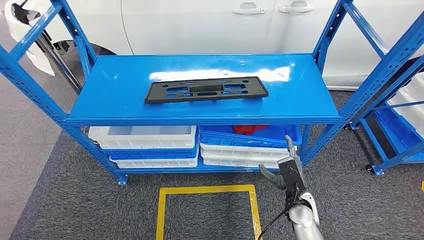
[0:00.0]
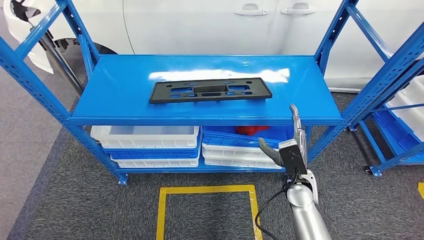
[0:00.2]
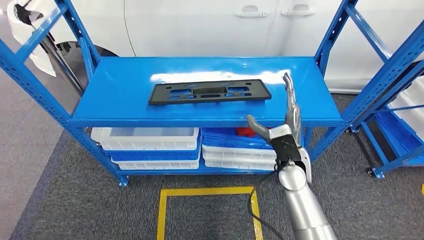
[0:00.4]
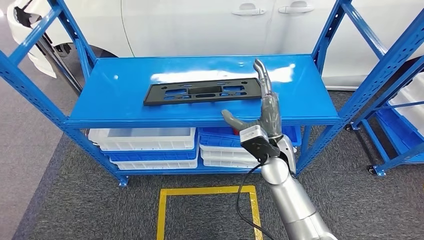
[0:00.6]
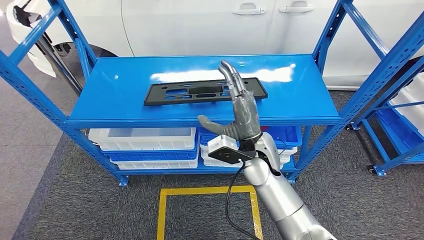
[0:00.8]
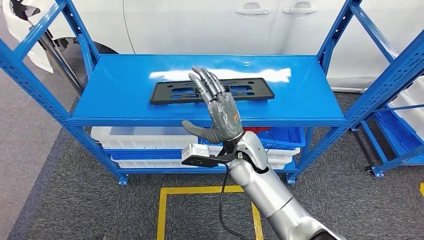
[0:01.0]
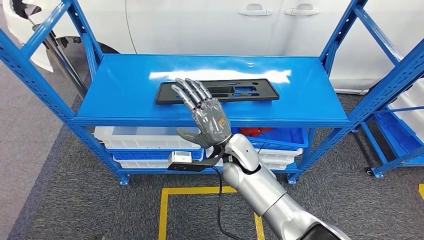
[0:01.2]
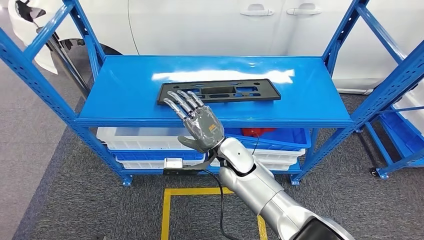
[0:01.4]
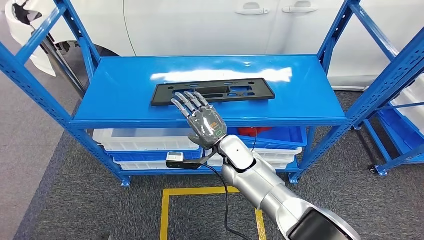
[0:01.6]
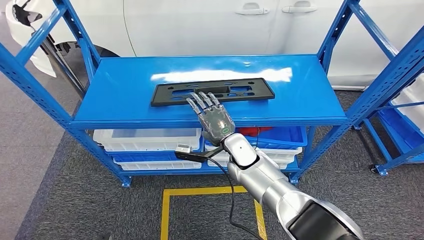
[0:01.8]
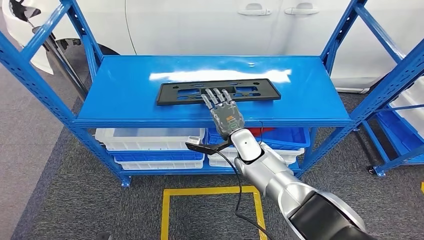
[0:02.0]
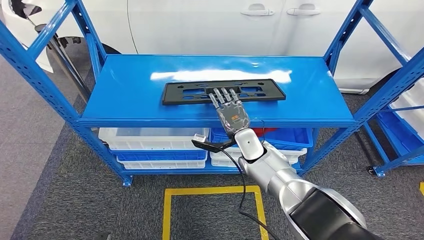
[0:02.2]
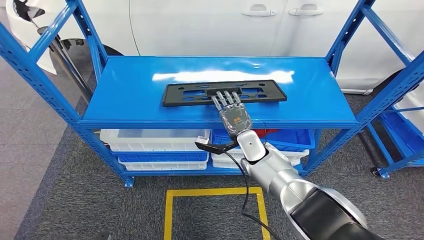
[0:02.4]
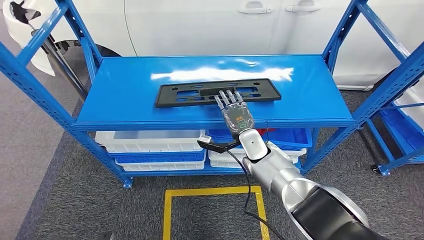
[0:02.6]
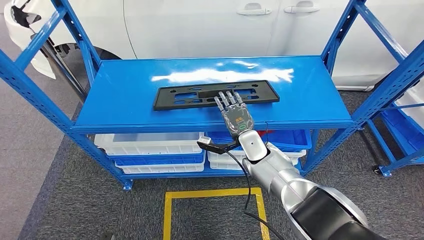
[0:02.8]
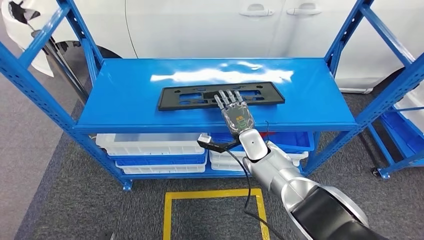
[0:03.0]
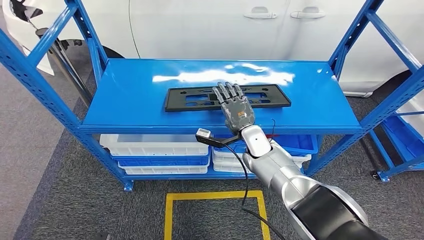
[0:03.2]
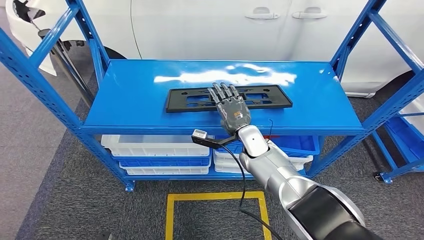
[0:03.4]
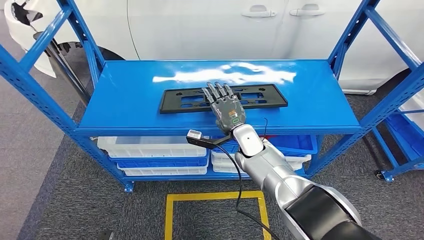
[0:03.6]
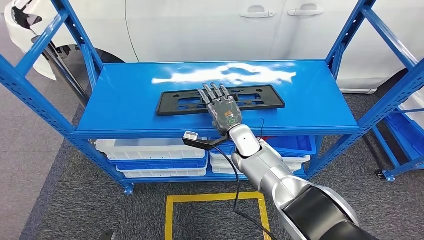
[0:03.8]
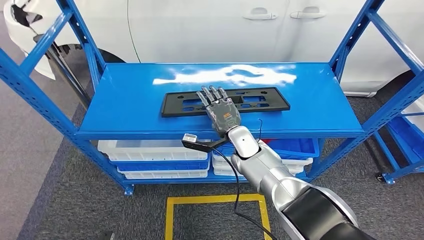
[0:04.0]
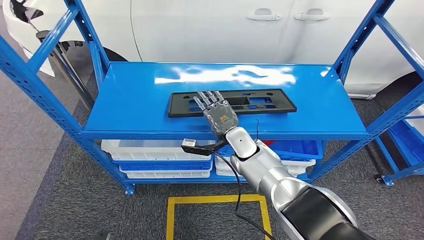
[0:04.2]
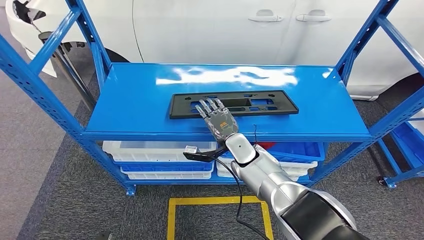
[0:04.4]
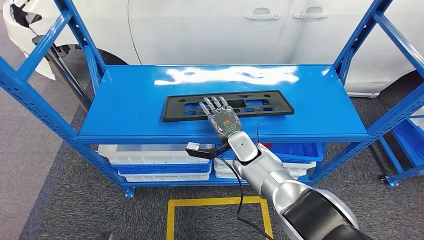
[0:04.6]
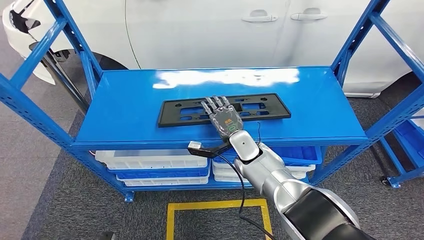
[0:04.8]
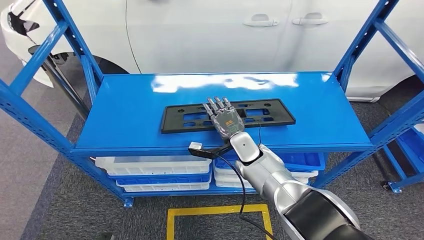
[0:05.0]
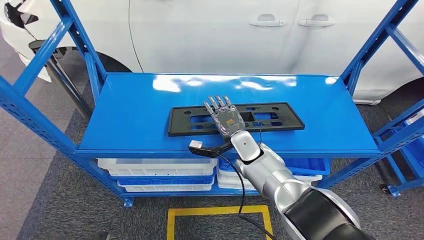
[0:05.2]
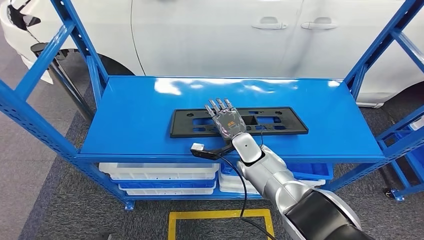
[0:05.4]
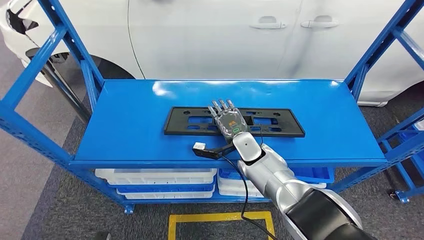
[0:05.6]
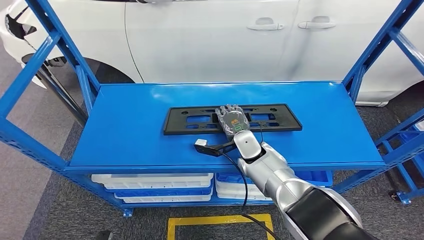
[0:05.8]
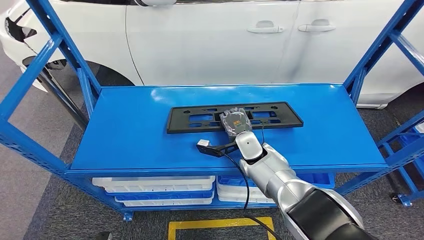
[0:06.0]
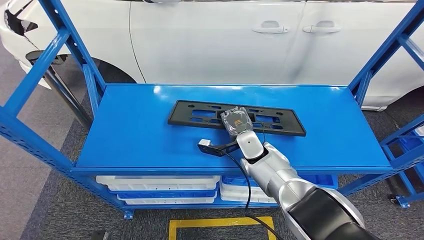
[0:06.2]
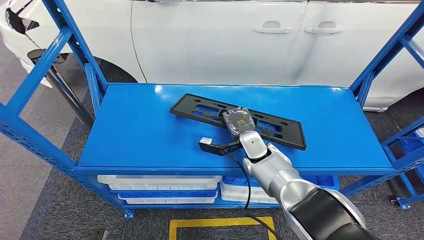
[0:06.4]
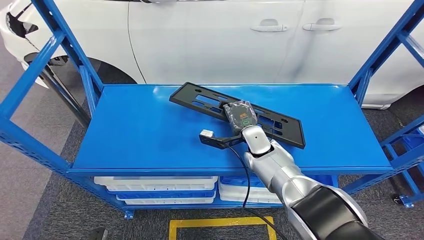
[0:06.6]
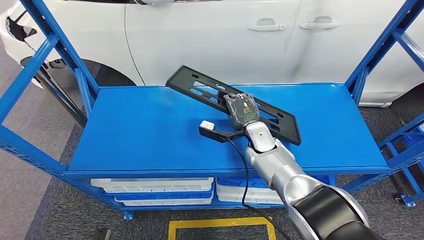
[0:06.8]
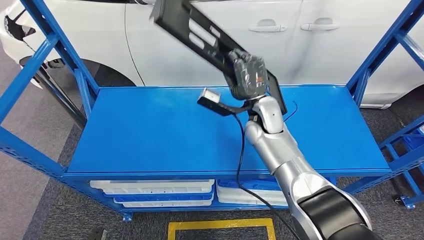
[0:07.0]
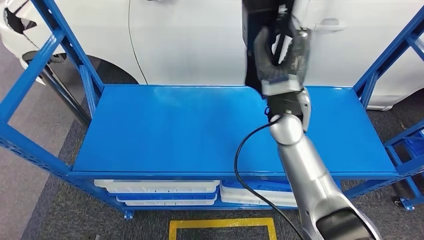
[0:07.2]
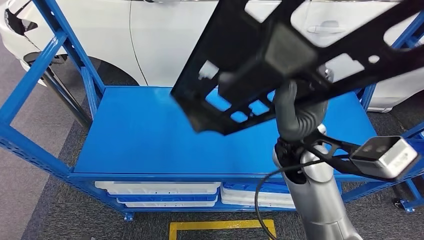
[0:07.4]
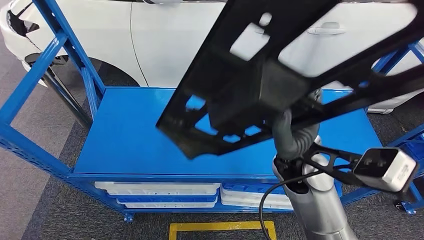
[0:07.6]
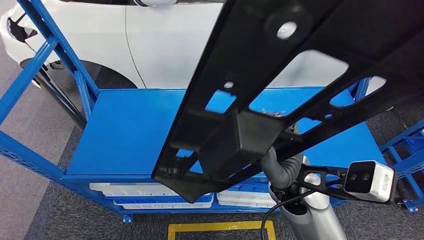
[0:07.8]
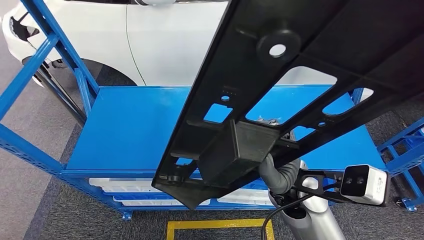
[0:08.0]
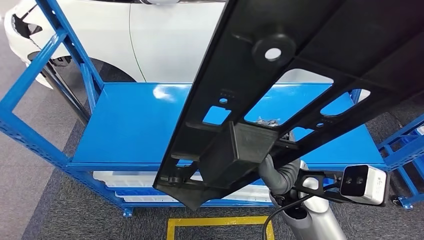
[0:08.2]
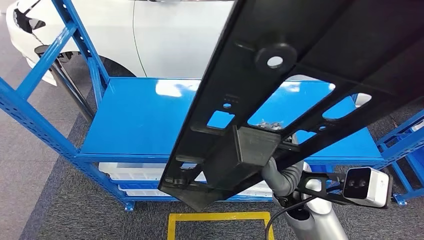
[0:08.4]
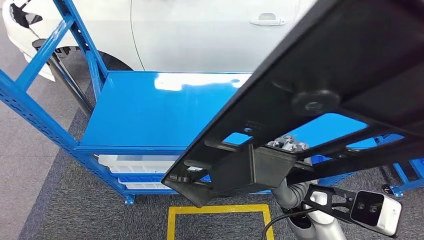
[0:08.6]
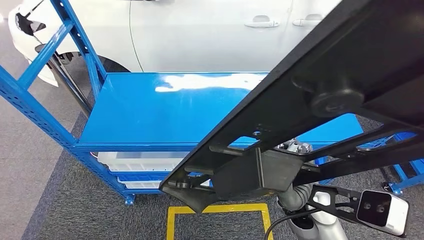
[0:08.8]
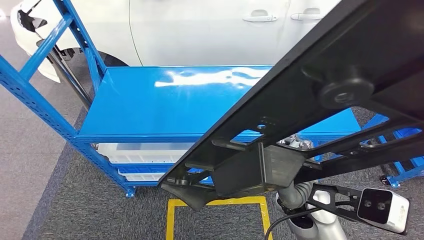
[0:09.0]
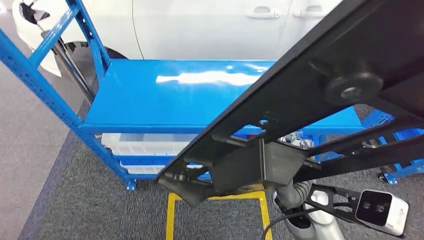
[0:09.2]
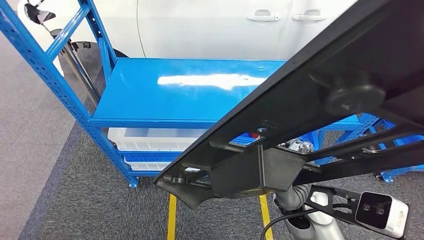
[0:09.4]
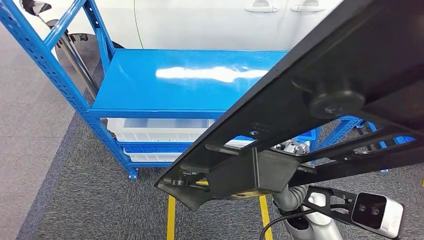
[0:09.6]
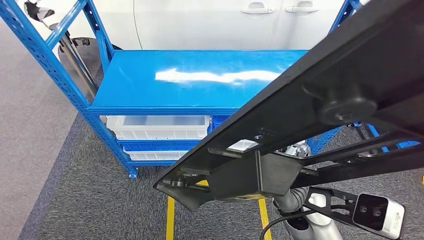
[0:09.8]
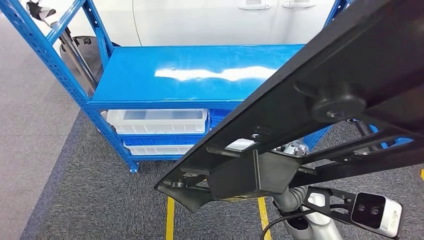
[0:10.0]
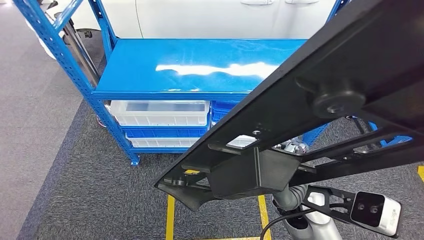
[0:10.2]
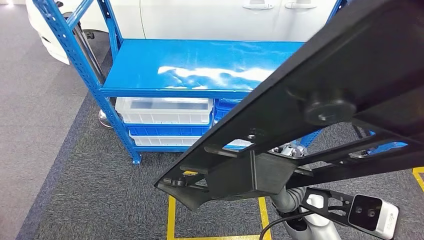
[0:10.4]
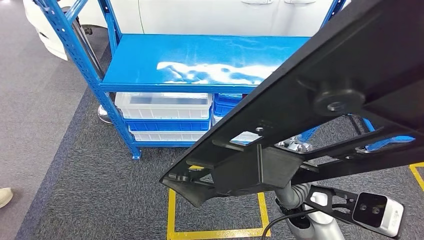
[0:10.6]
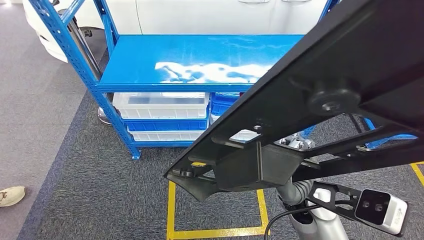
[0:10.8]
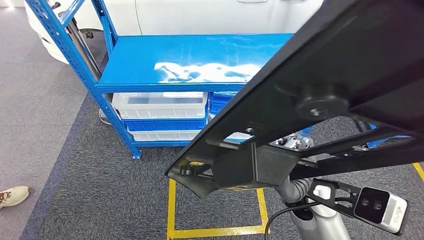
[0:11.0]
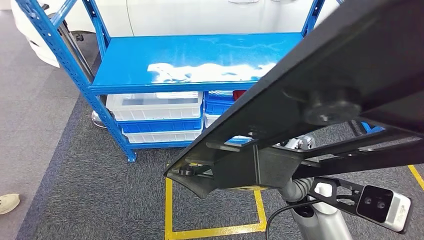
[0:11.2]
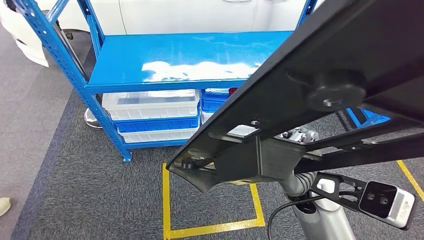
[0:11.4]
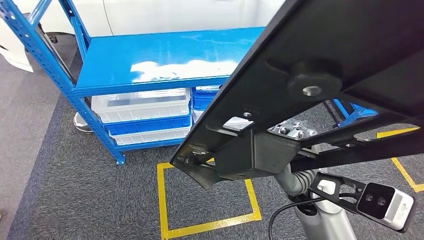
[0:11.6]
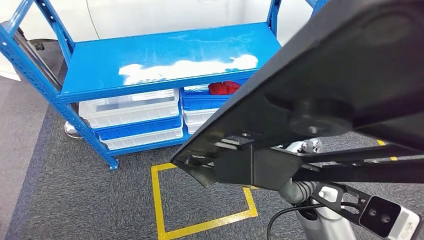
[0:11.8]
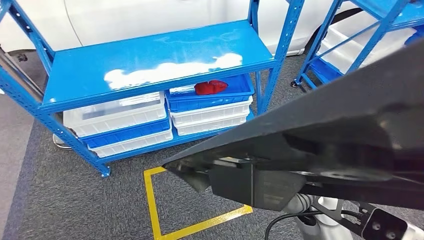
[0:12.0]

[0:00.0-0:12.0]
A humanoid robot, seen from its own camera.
Step, 0:00.0 to 0:07.4: Pick up the large material from the shelf.

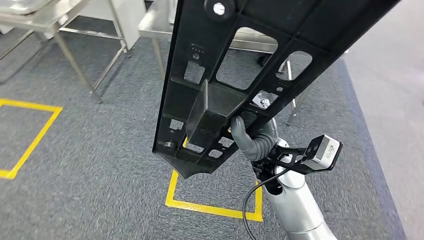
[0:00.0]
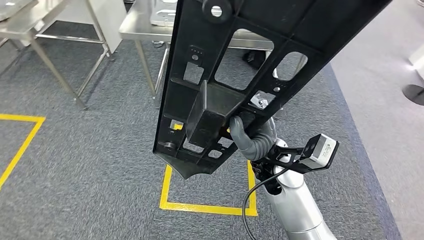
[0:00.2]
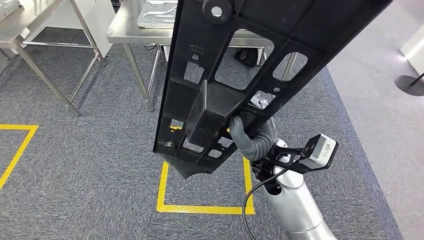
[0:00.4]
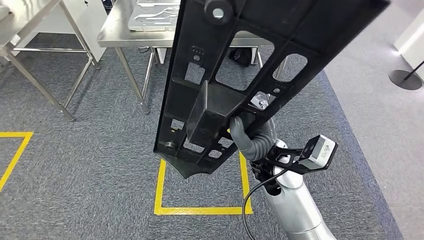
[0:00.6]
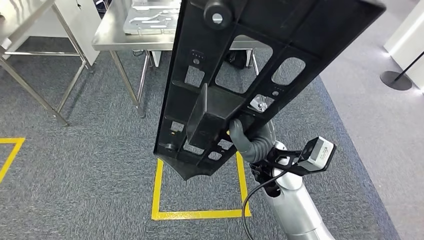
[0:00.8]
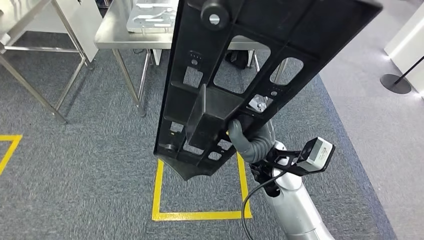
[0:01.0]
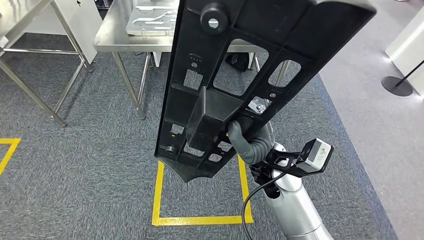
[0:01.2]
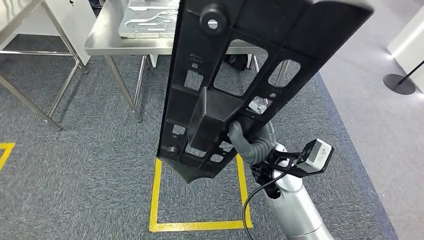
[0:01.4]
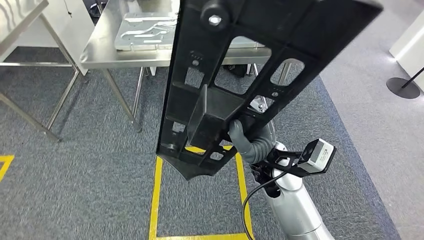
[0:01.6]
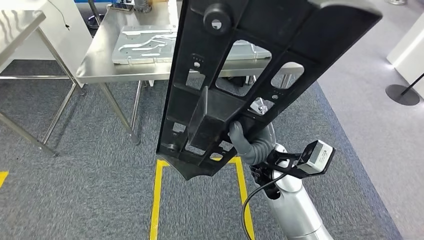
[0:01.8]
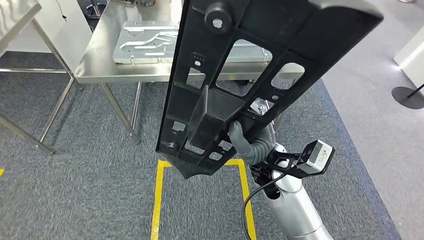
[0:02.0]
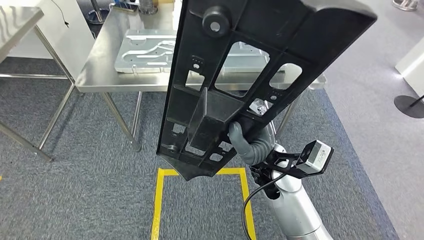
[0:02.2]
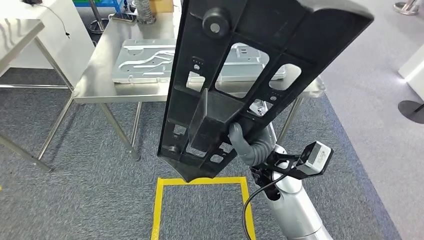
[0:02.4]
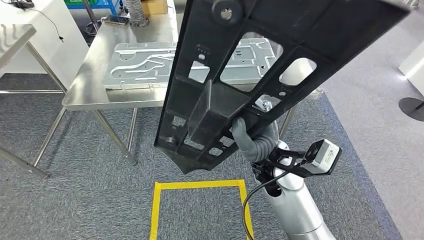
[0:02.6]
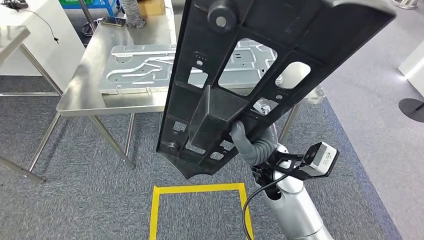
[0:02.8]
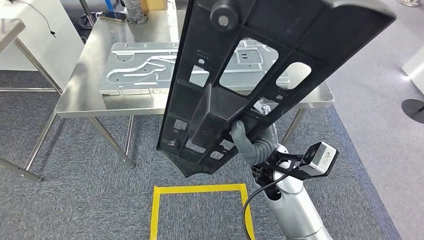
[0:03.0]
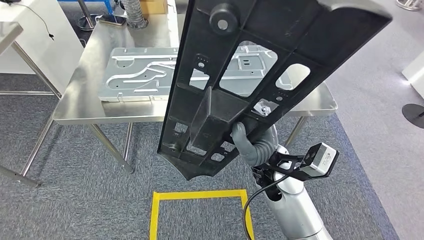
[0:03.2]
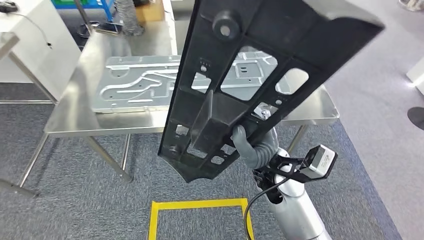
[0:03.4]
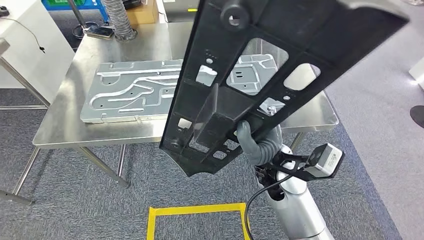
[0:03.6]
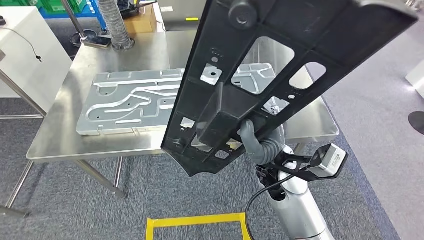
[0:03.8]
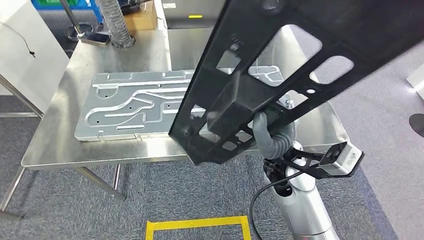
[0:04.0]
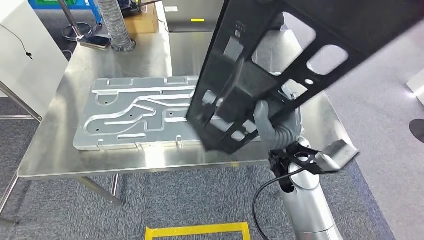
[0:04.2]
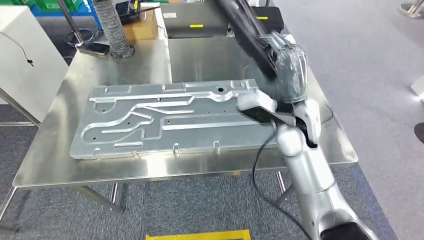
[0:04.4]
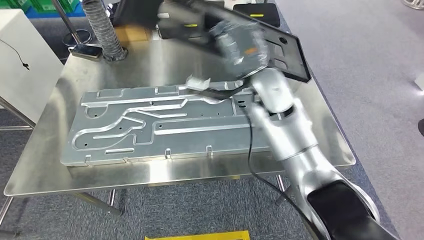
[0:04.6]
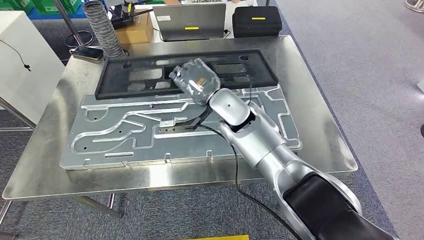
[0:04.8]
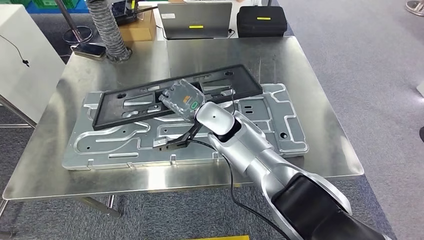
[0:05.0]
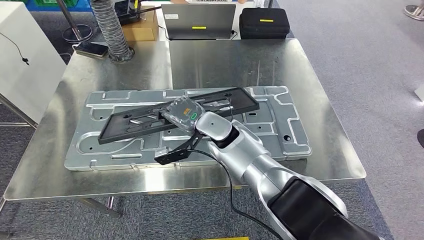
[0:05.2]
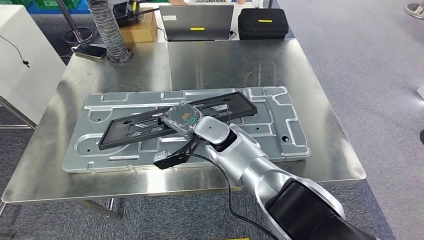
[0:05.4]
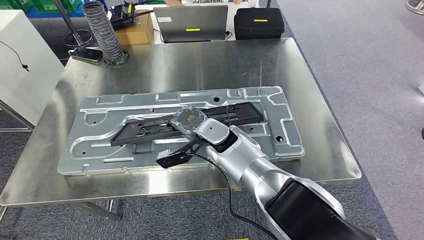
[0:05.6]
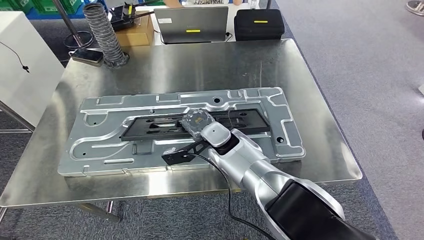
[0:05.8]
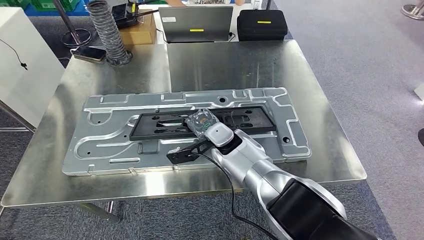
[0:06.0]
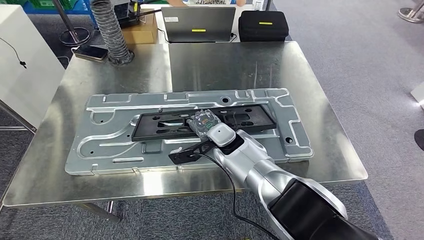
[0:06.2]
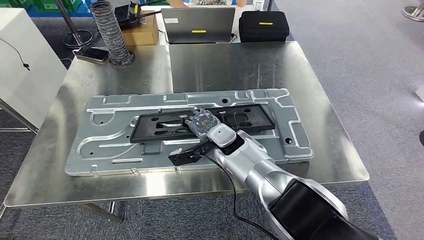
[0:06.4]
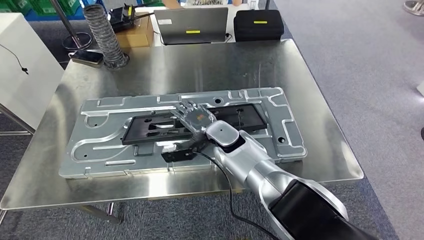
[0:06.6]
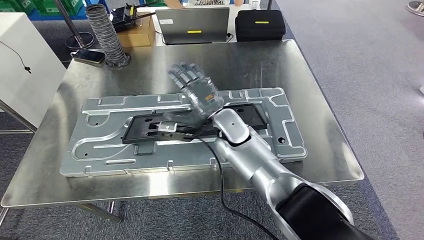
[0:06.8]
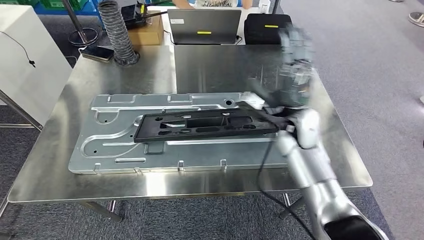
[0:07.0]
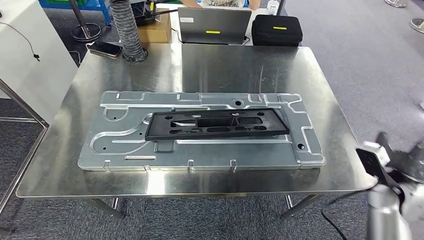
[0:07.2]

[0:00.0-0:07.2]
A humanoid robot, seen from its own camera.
Step, 0:00.0 to 0:05.0: Move the large material to the workbench.
